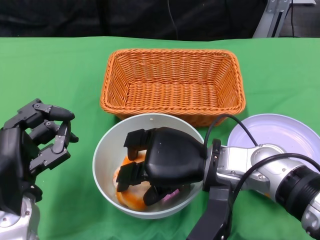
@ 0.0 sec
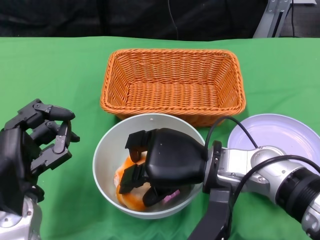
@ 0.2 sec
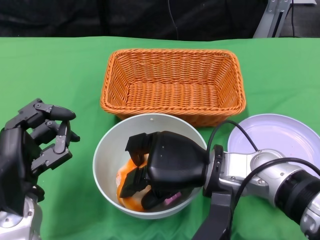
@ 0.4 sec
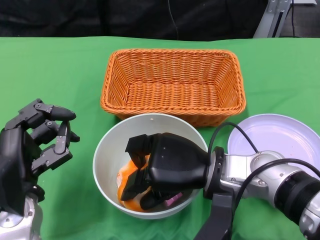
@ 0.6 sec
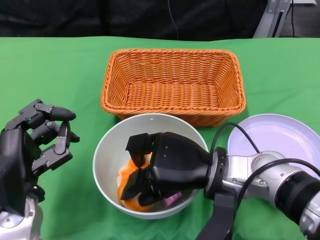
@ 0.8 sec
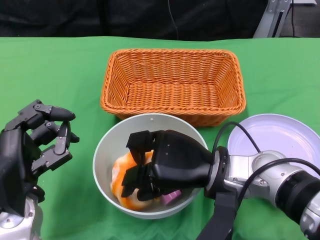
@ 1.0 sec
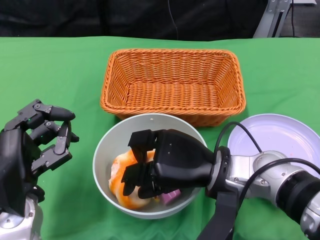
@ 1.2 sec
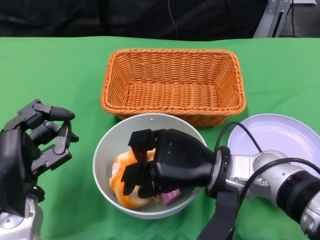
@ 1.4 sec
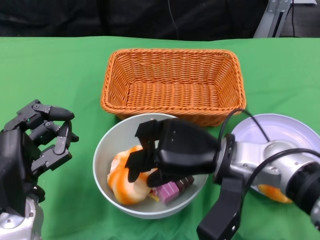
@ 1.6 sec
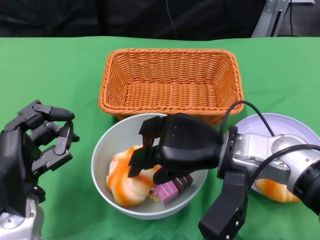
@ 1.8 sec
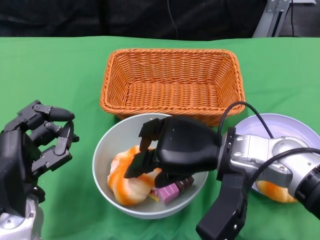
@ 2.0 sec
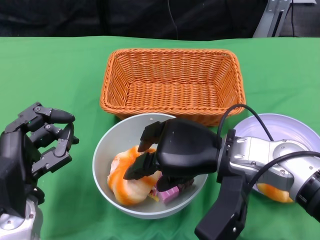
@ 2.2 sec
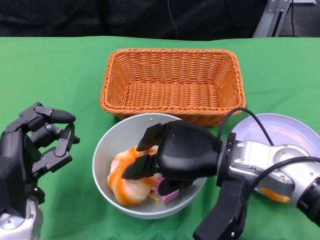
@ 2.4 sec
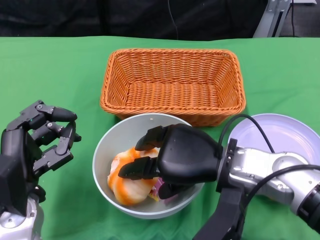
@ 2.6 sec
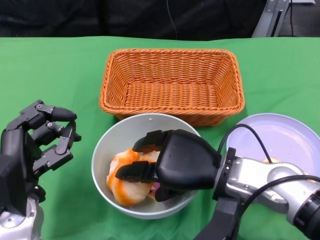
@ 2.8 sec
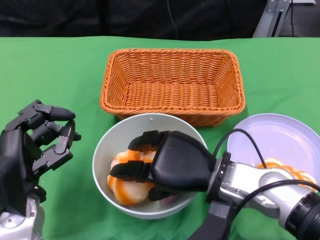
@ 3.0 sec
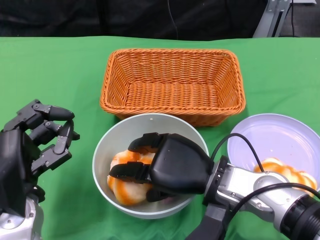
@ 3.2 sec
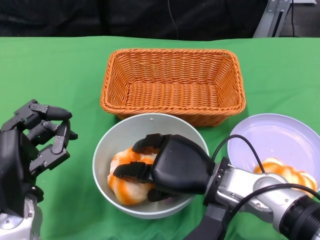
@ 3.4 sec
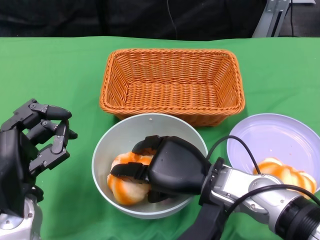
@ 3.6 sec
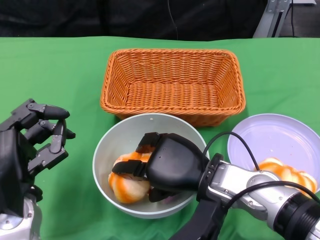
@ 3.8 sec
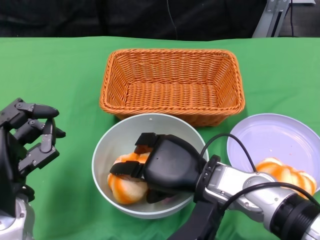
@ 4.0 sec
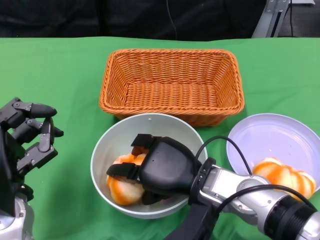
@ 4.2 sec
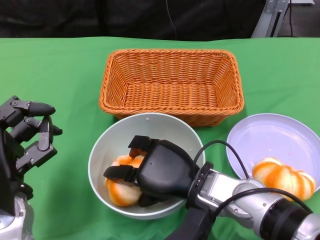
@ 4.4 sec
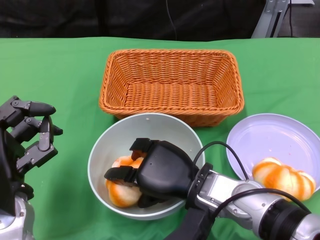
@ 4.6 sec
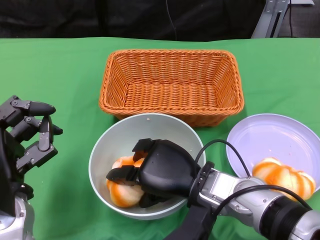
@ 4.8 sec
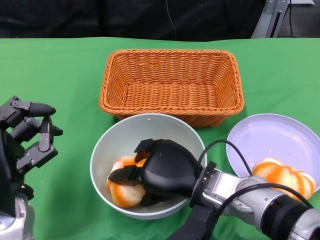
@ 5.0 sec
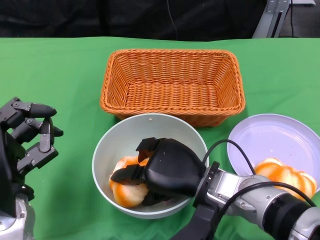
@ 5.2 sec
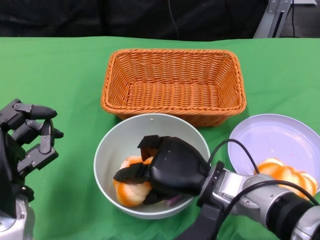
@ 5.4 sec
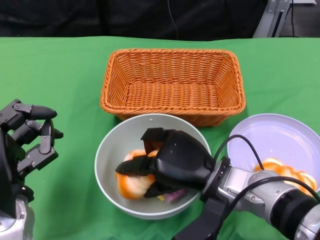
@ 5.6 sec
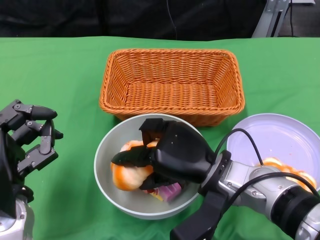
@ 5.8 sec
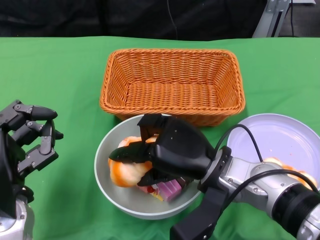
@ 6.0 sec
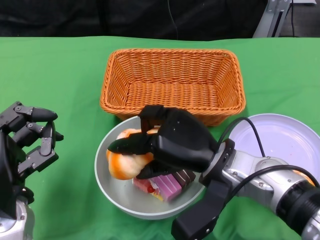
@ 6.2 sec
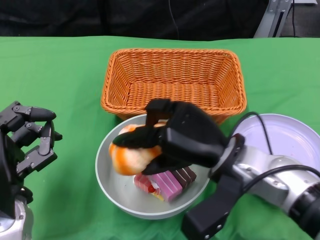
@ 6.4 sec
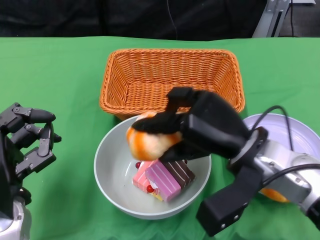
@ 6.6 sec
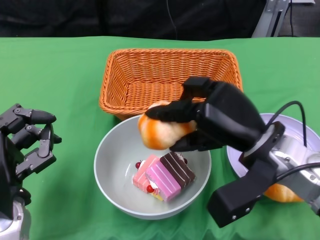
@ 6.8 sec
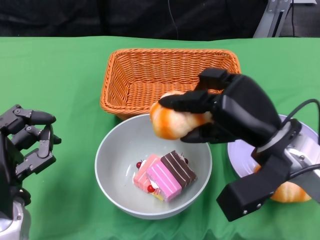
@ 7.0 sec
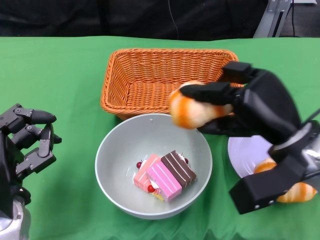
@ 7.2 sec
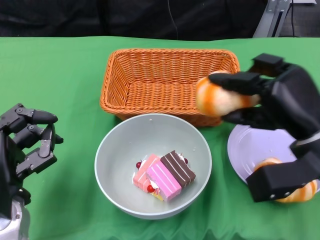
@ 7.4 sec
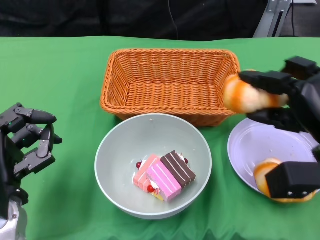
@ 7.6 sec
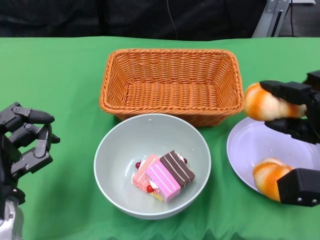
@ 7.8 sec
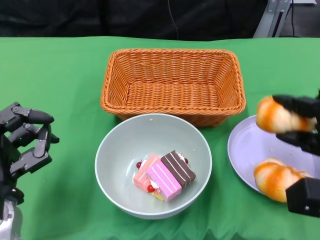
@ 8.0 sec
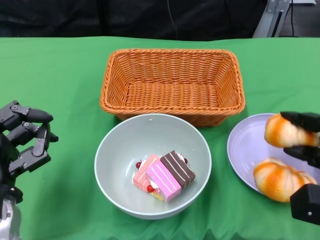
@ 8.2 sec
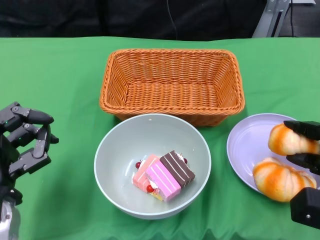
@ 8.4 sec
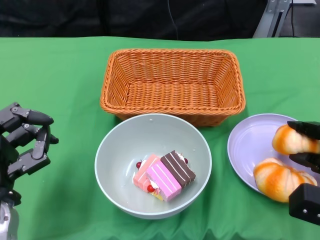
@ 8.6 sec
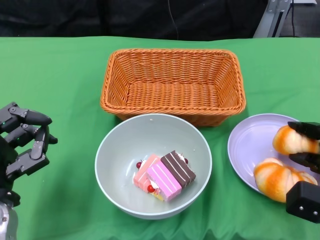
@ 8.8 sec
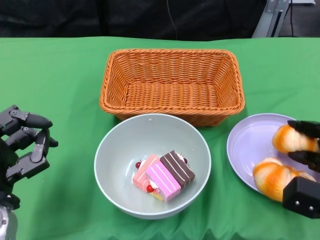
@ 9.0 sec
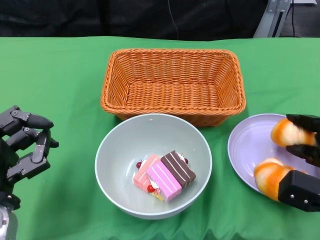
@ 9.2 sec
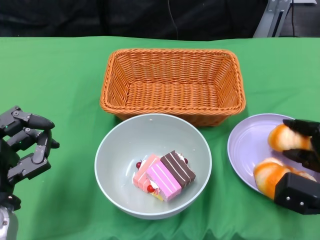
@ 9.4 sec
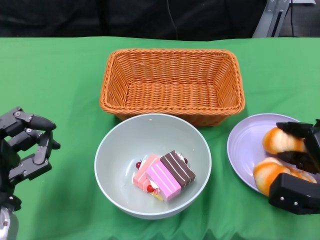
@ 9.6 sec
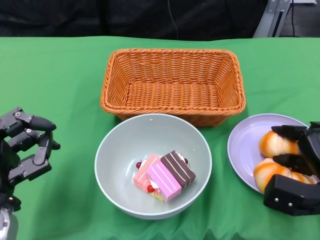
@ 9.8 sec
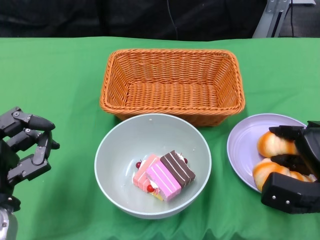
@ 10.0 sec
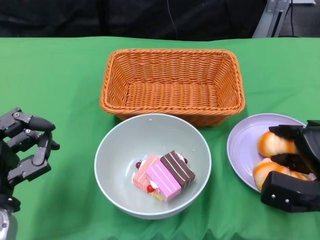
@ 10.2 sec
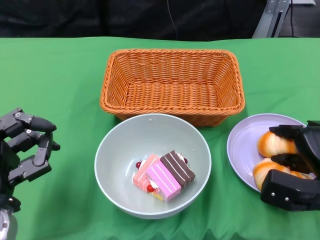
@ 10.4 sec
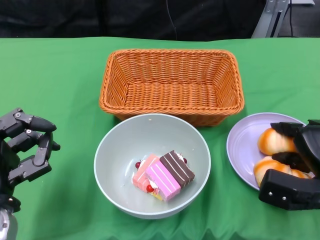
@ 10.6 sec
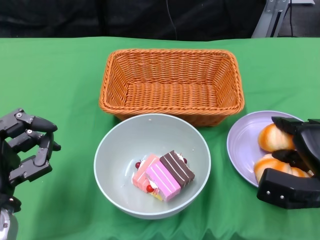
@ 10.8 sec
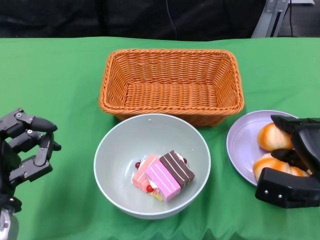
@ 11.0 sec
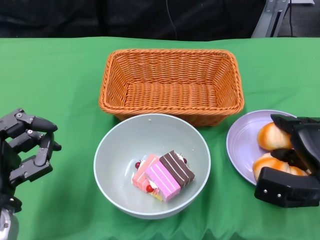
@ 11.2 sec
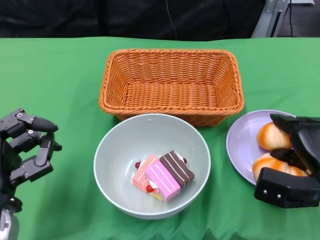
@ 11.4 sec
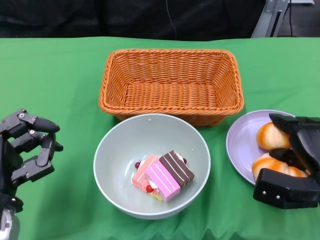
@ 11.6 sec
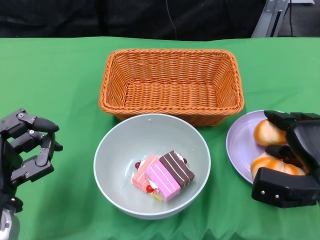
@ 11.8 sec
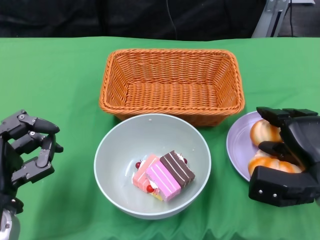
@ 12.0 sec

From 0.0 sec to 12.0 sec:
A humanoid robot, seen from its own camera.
From 0.0 sec to 3.0 sec: The hands move only a little.
From 6.0 sec to 7.6 sec: The right hand moves to the right, approximately 15 cm.
From 7.6 sec to 9.0 sec: The right hand heads downward, covering approximately 10 cm.
From 9.0 sec to 12.0 sec: There are only small adjustments of the hands.

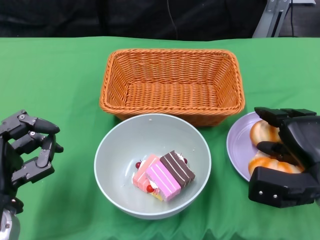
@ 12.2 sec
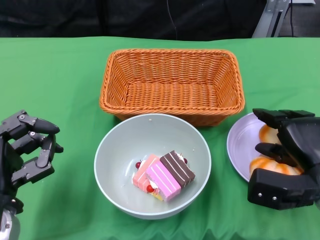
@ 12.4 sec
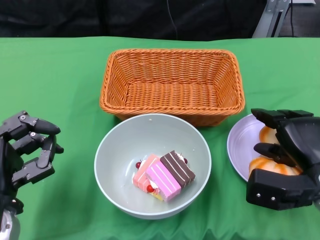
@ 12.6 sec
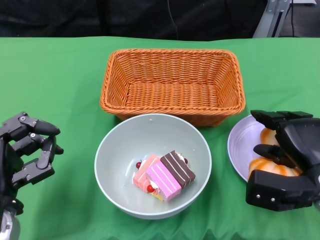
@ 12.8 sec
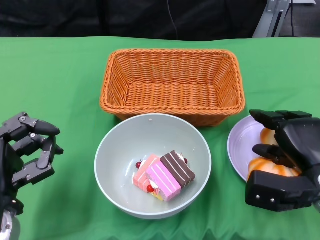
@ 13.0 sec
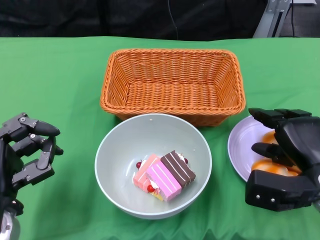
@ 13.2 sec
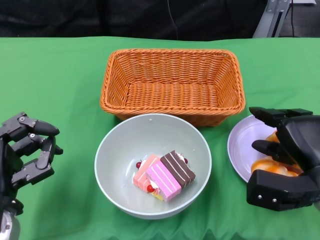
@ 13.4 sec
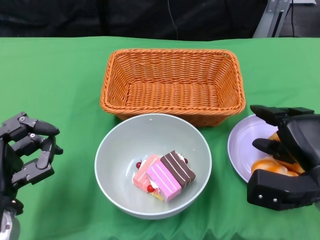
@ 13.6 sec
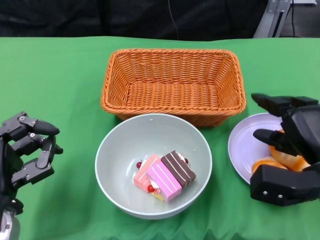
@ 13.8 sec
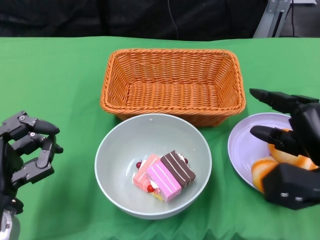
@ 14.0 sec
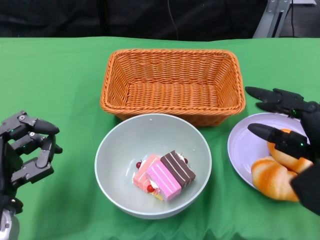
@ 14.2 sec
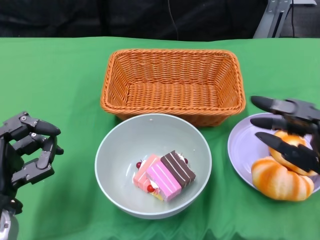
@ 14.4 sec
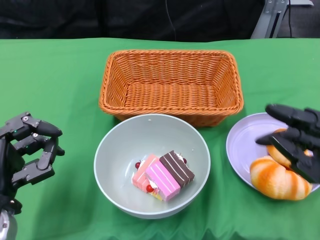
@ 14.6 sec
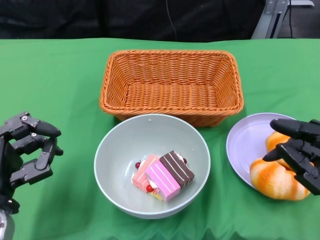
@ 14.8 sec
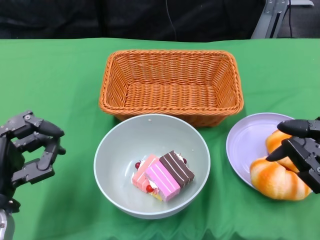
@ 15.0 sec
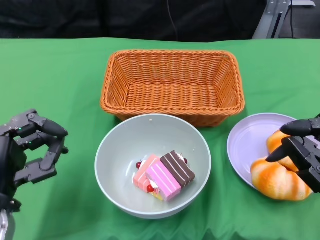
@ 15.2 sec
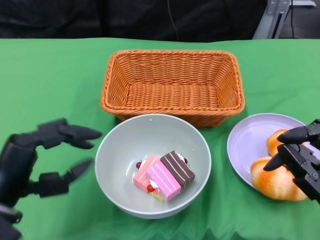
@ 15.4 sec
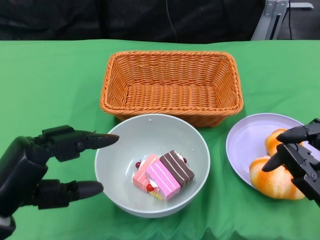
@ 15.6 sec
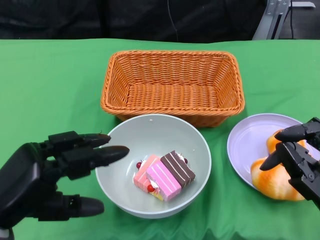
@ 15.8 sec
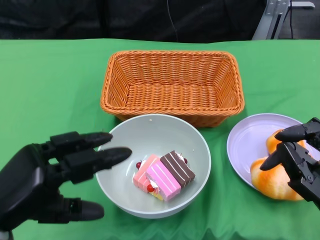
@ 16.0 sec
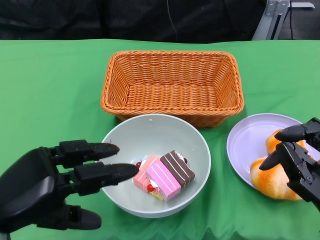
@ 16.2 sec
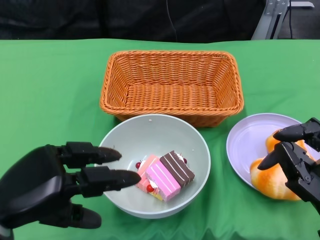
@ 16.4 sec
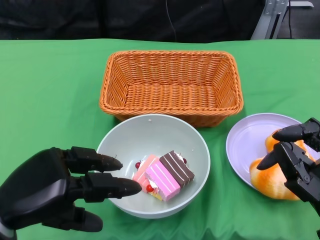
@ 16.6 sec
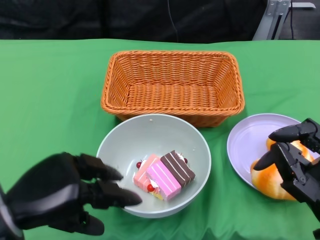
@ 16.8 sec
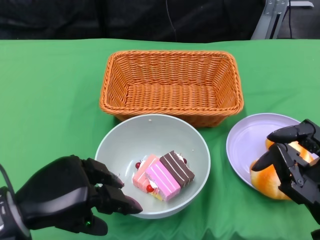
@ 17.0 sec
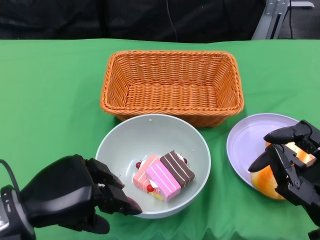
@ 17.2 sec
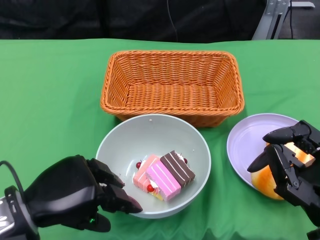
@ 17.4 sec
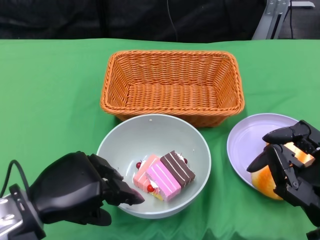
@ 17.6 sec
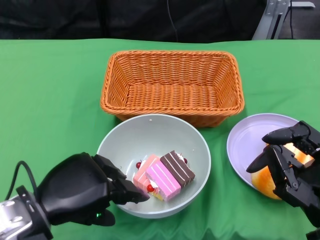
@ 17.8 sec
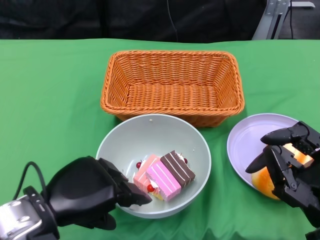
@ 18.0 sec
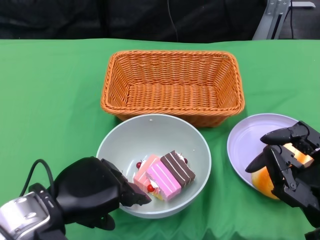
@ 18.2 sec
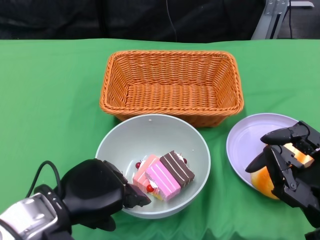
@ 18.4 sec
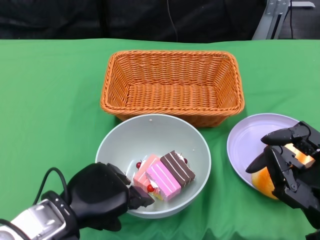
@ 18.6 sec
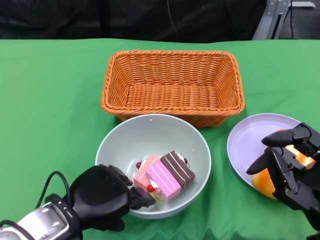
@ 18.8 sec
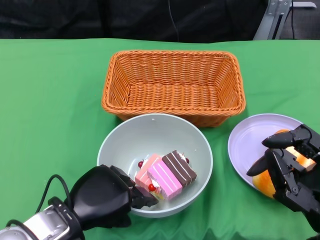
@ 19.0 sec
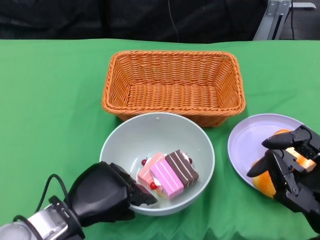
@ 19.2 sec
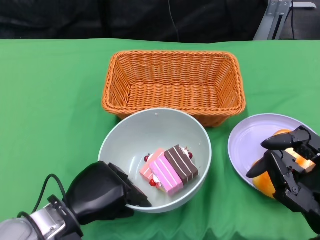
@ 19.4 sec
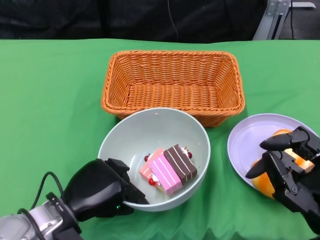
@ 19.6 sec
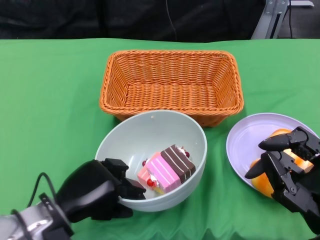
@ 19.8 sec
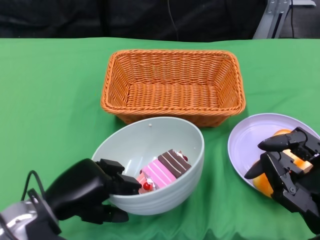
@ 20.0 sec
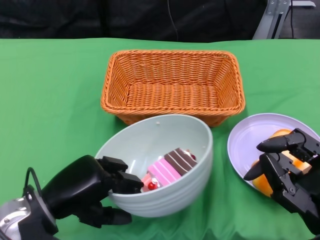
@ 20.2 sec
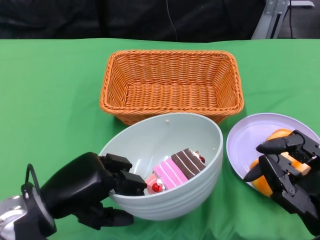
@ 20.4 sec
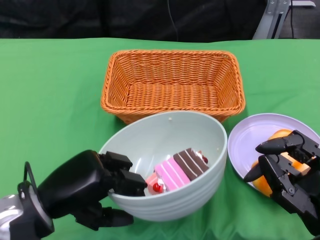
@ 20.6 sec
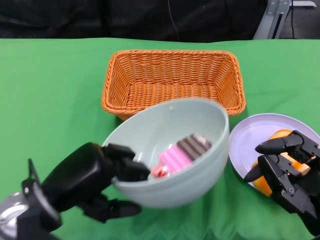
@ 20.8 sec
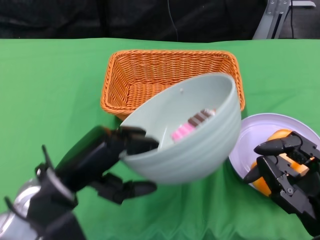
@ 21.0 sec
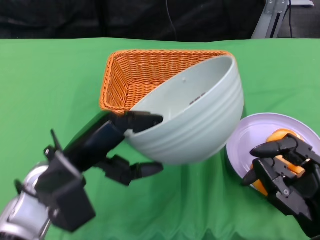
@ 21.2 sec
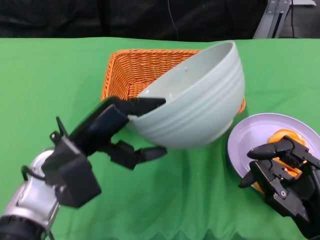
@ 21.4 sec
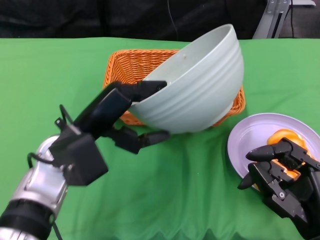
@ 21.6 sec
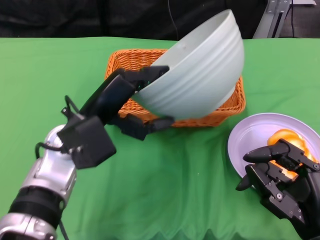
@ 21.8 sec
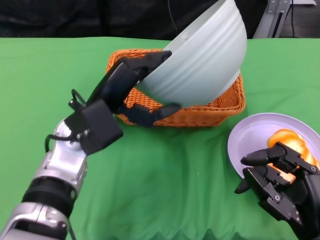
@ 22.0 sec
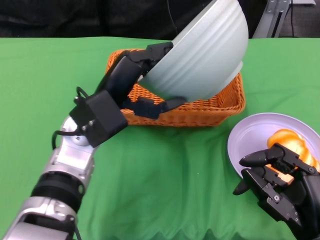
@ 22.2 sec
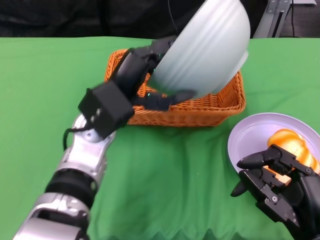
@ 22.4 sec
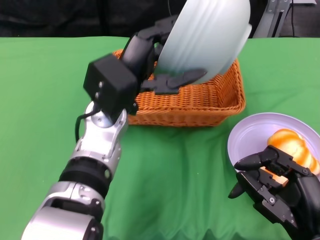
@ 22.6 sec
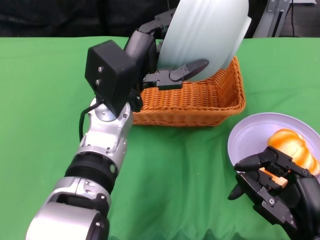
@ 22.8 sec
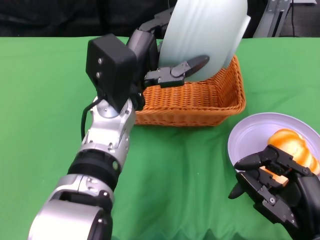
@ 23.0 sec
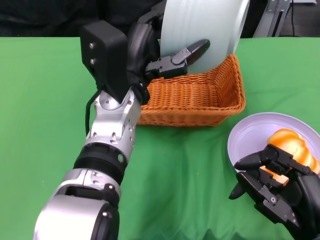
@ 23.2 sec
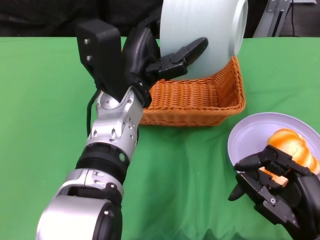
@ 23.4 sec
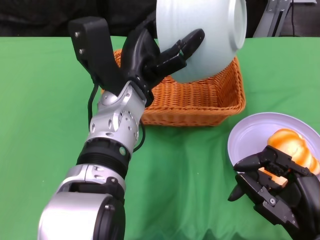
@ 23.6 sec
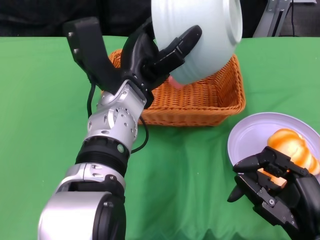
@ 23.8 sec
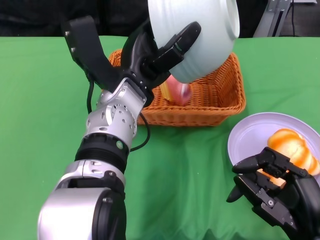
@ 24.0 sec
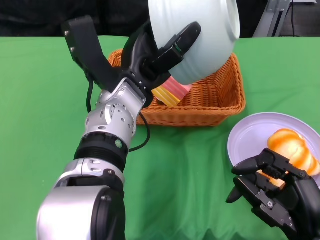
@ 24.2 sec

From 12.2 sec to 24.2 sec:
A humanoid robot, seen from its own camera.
Step, from 12.2 sec to 14.2 sec: Pick up the bread with the right gripper and place it on the plate.
Step, from 14.6 sec to 19.6 sec: Grasp the bowl with the left gripper.
From 12.2 sec to 13.8 sec: The hands make only small movements.
From 13.8 sec to 15.2 sec: The right hand goes about 10 cm backward.
From 15.2 sec to 16.6 sec: The left hand shifts about 5 cm upward.
From 16.6 sec to 18.2 sec: The left hand goes approximately 5 cm to the right.
From 18.2 sec to 19.8 sec: The left hand goes some 5 cm downward.
From 19.8 sec to 21.2 sec: The left hand shifts approximately 10 cm upward.
From 21.2 sec to 22.6 sec: The left hand heads to the right and forward, covering roughly 10 cm.
